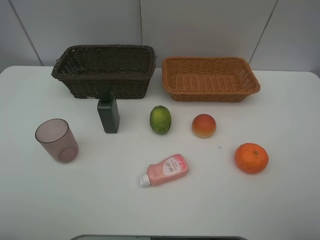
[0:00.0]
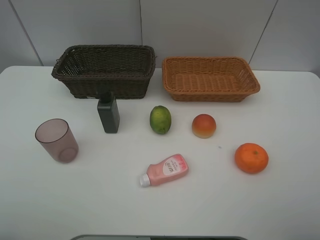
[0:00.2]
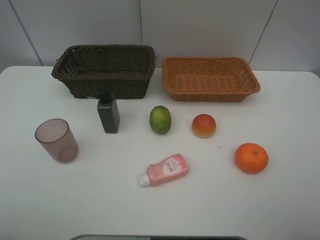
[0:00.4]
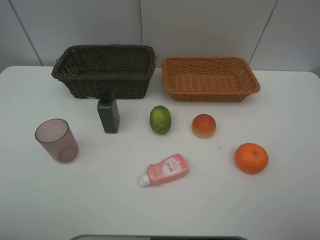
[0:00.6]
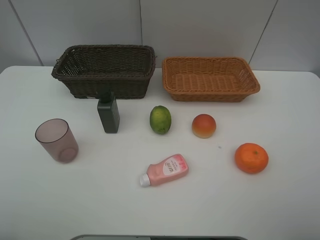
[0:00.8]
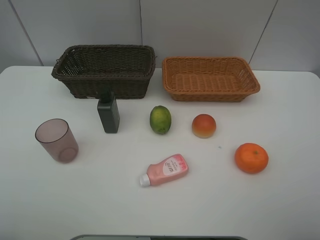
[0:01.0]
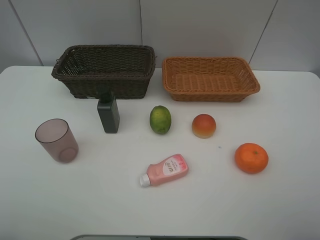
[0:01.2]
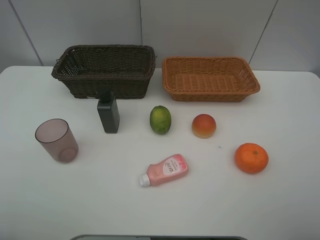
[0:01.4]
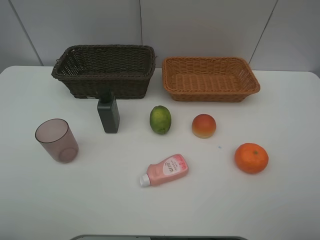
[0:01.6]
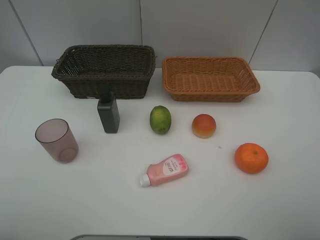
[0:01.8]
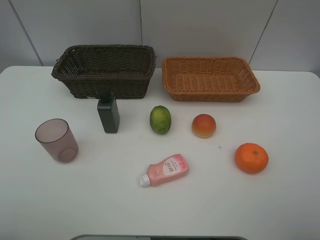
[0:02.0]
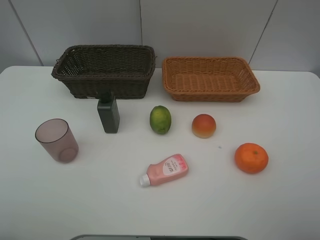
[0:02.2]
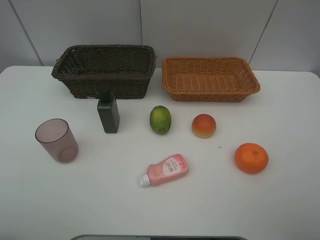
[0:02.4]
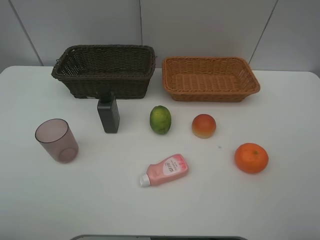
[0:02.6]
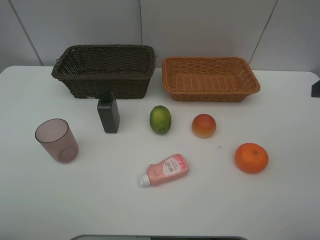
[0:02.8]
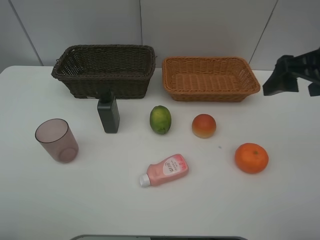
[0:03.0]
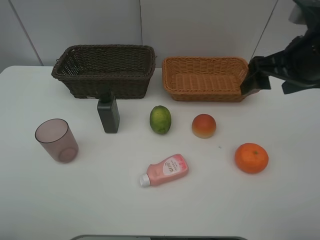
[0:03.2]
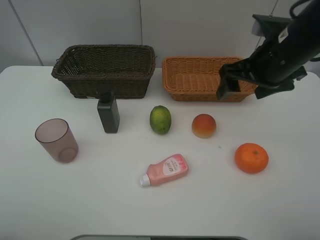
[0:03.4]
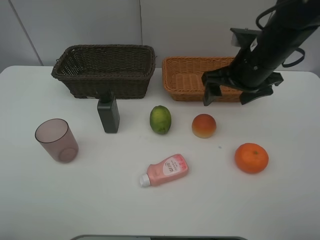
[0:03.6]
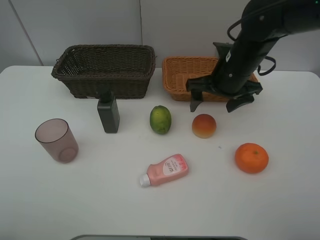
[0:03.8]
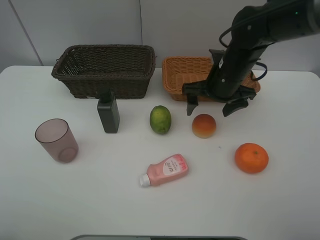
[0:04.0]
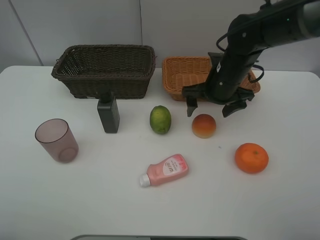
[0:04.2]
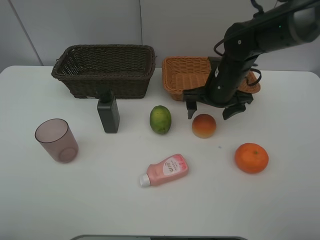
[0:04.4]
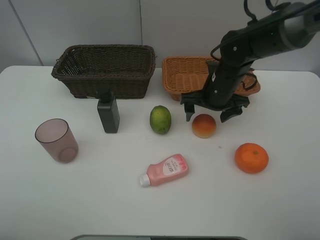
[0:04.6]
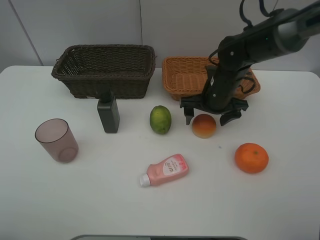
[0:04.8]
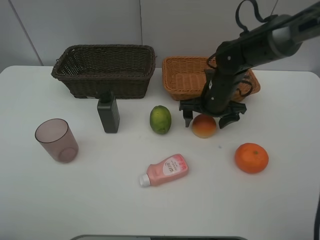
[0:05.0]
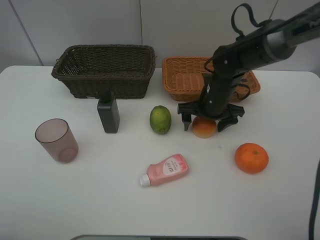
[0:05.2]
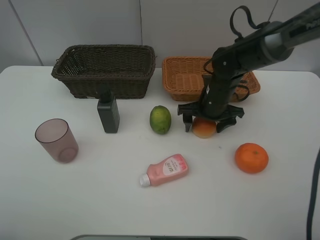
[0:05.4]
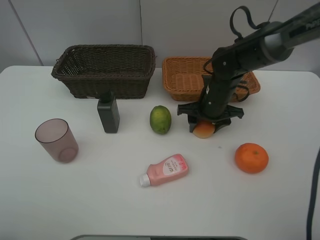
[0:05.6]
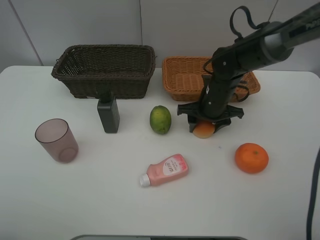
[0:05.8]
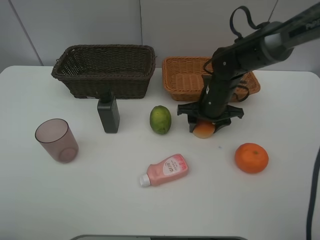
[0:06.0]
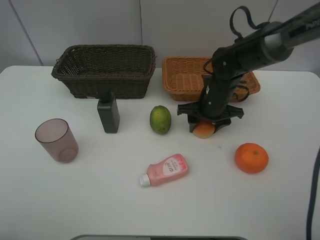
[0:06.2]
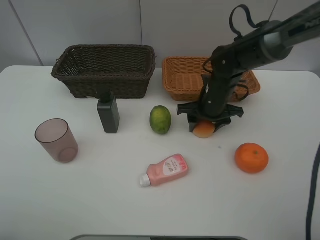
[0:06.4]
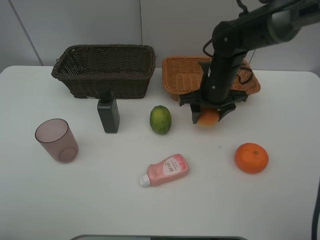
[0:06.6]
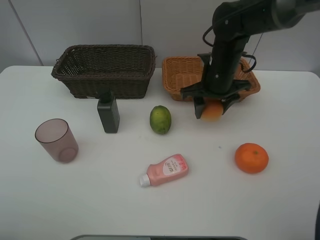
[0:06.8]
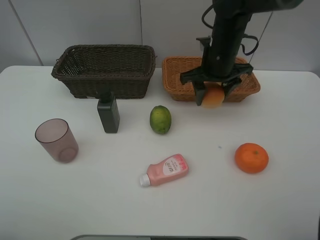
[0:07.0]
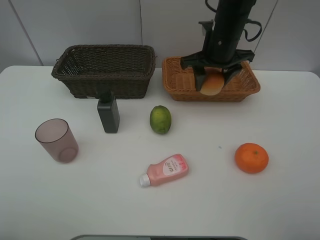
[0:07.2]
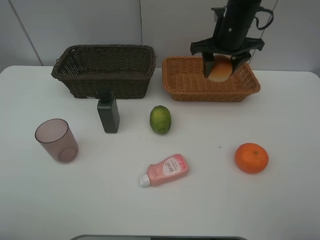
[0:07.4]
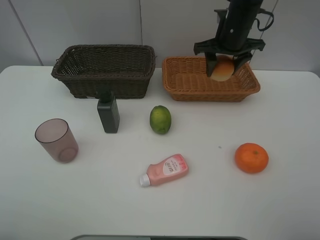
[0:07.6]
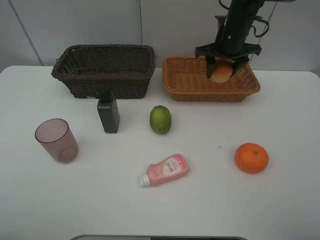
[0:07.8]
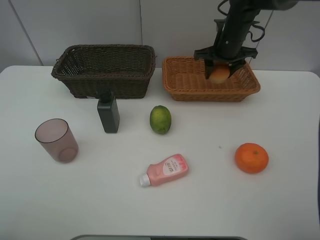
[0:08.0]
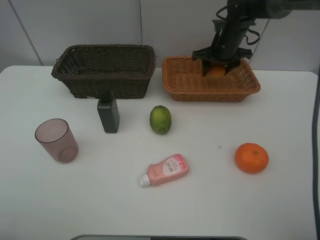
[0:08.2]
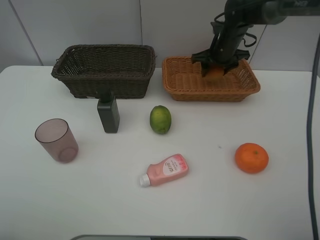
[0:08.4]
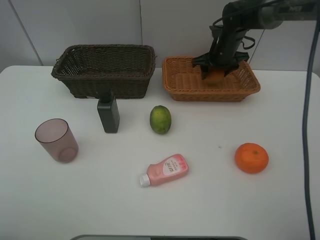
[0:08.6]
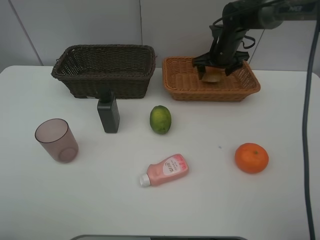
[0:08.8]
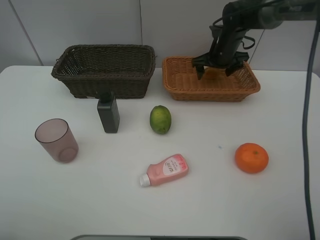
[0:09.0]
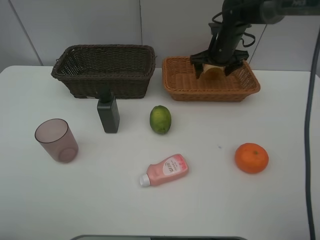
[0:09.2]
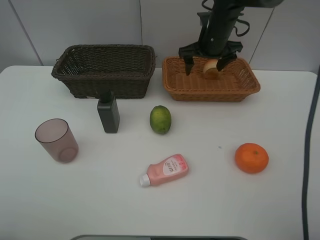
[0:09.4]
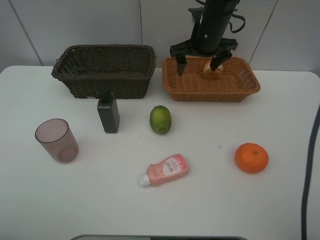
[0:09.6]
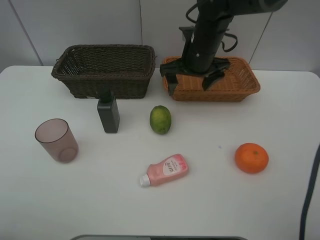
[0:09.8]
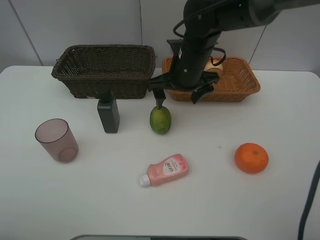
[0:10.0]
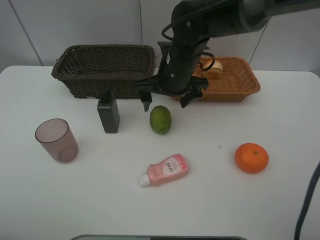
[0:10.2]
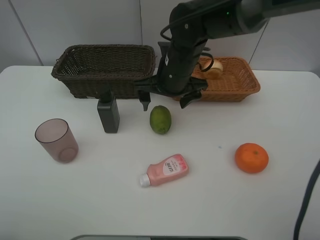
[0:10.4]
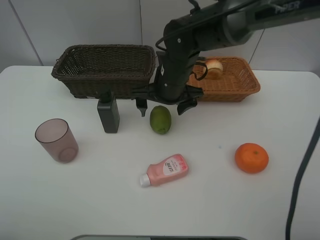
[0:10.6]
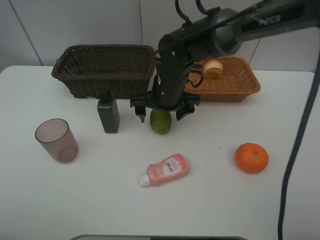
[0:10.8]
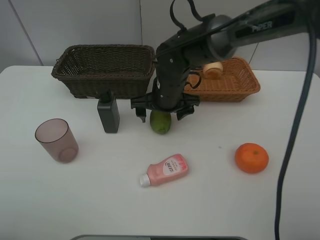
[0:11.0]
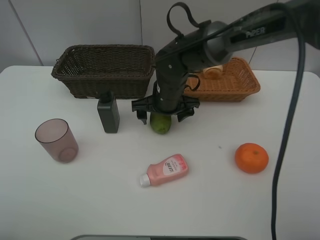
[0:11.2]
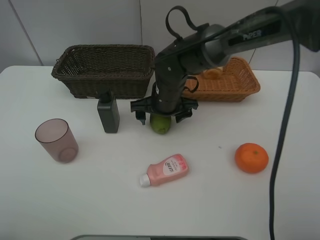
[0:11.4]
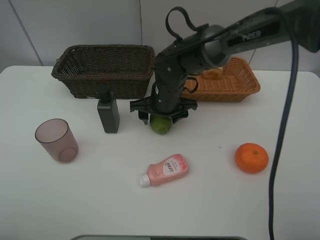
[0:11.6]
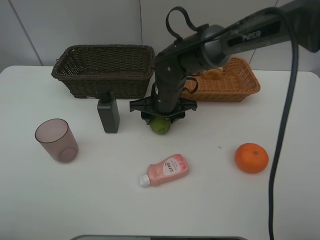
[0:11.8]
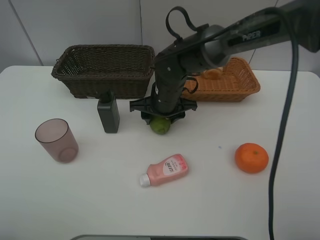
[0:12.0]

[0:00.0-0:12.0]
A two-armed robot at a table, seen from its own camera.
Task of the whole recording: place multiple objects separately in different baskets.
0:00.0 to 0:01.6: The two grippers keep their place.
0:01.6 to 0:03.0: The right gripper travels forward by about 20 cm.
0:03.0 to 0:04.4: The right gripper goes some 20 cm downward, forward and to the left.
0:04.4 to 0:06.0: The right gripper closes.
0:06.0 to 0:07.6: The right gripper travels upward and forward by about 15 cm.
0:07.6 to 0:09.0: The right gripper goes approximately 10 cm downward and forward, and opens.
0:09.0 to 0:10.4: The right gripper goes approximately 20 cm backward and to the left.
0:10.4 to 0:12.0: The right gripper moves downward, about 5 cm, and closes.

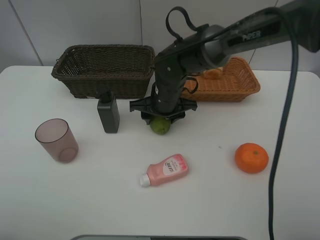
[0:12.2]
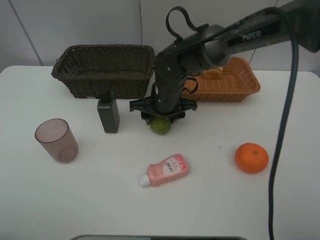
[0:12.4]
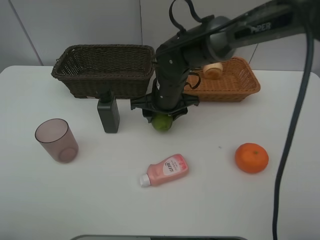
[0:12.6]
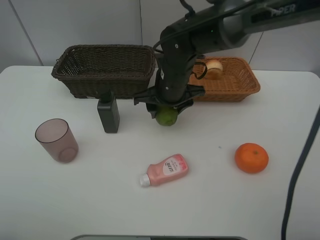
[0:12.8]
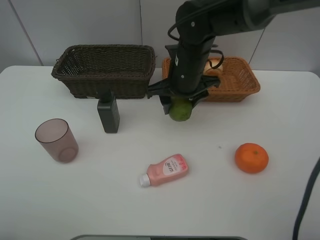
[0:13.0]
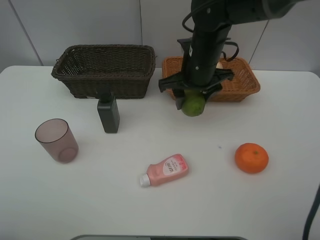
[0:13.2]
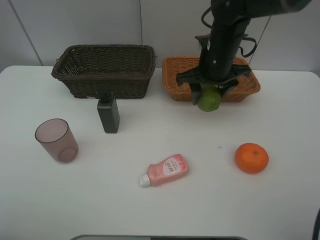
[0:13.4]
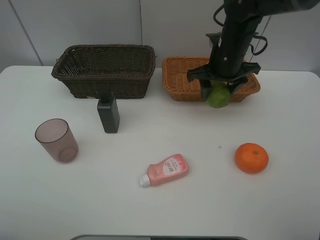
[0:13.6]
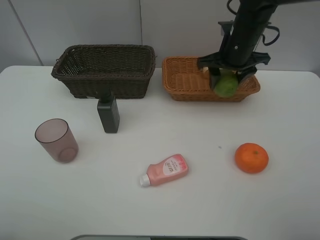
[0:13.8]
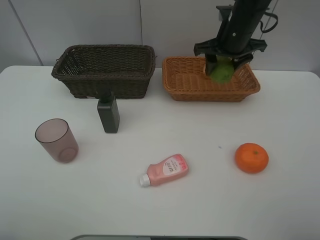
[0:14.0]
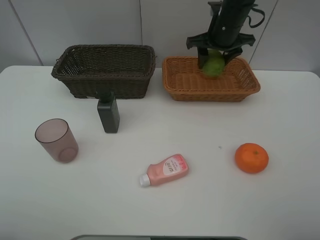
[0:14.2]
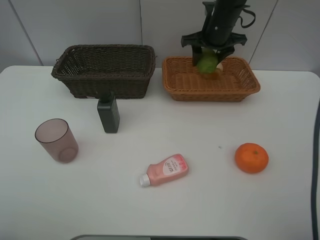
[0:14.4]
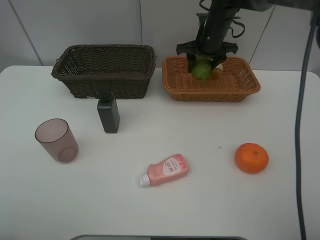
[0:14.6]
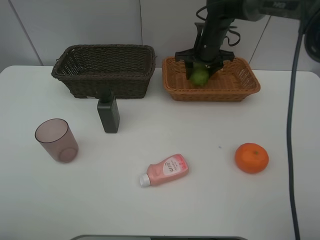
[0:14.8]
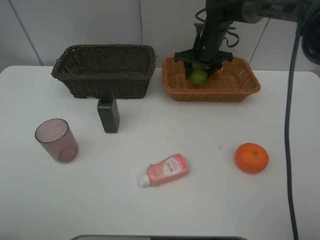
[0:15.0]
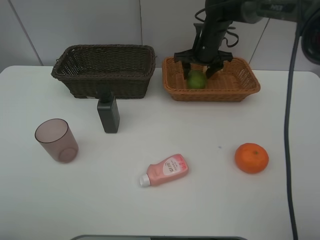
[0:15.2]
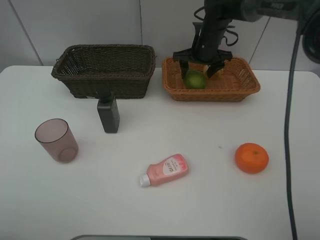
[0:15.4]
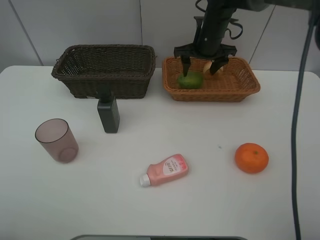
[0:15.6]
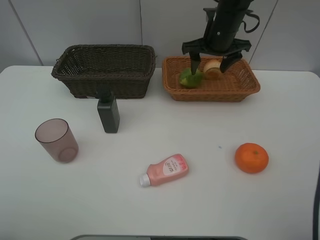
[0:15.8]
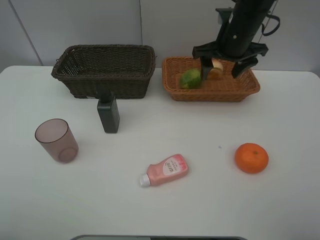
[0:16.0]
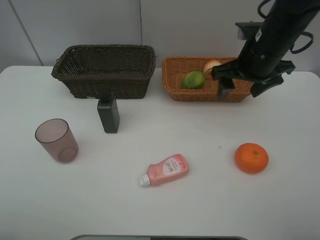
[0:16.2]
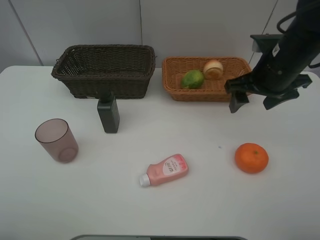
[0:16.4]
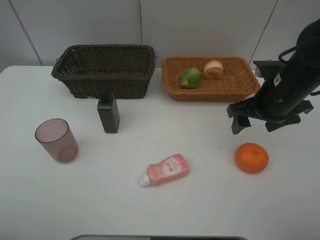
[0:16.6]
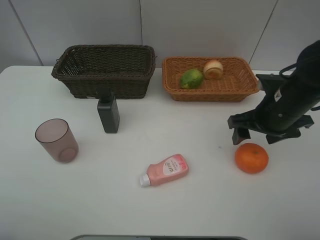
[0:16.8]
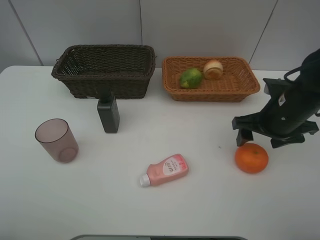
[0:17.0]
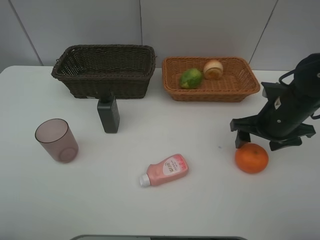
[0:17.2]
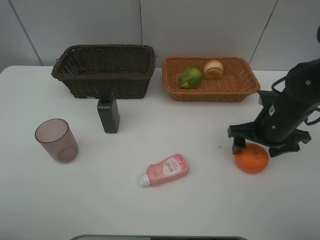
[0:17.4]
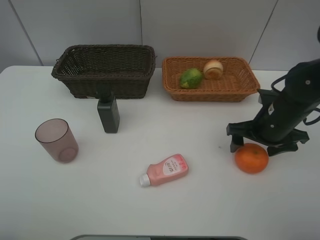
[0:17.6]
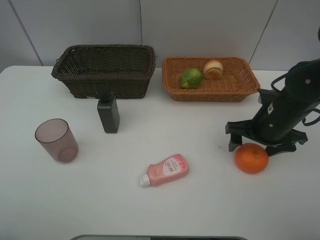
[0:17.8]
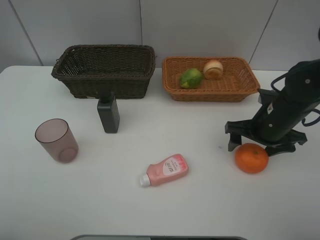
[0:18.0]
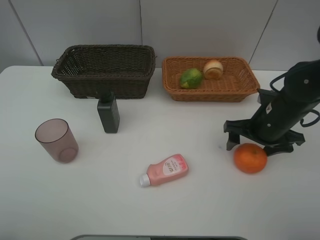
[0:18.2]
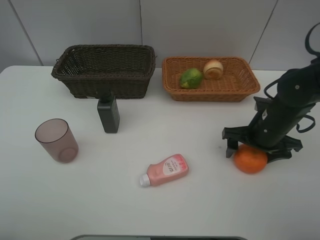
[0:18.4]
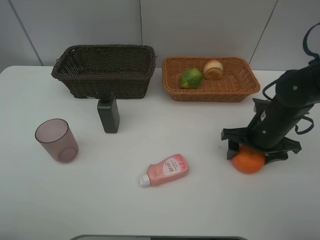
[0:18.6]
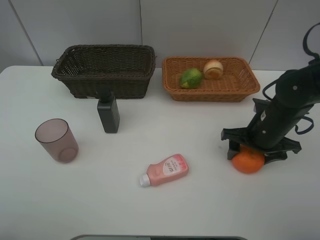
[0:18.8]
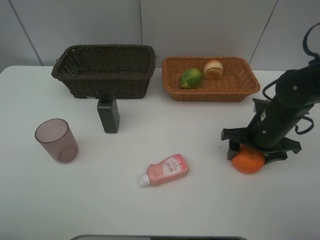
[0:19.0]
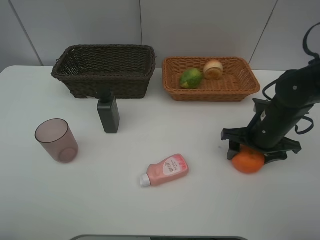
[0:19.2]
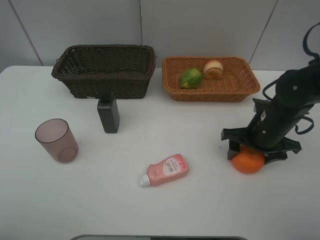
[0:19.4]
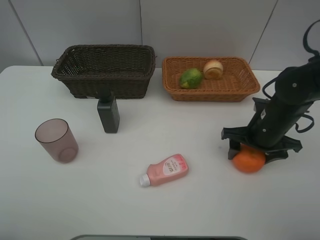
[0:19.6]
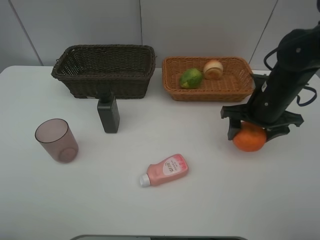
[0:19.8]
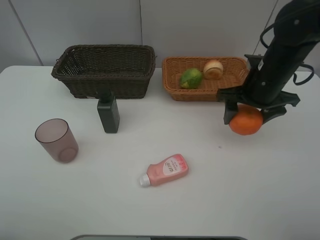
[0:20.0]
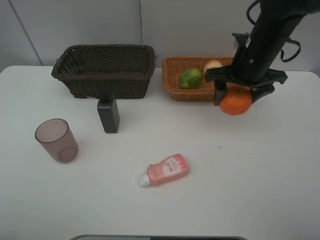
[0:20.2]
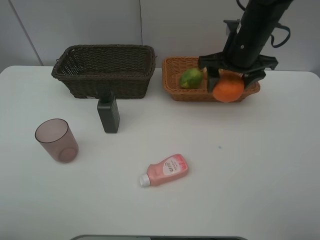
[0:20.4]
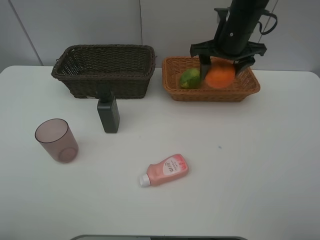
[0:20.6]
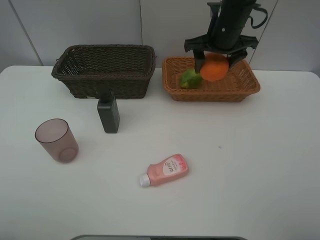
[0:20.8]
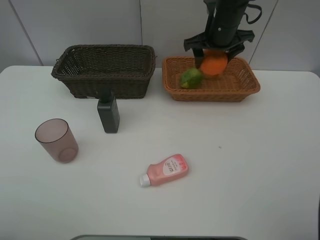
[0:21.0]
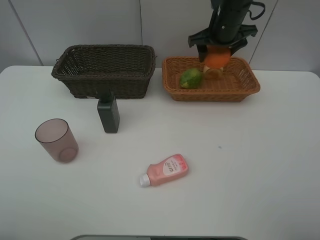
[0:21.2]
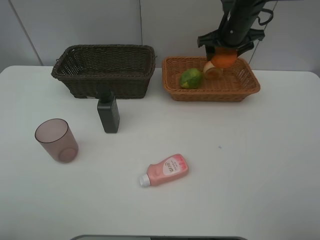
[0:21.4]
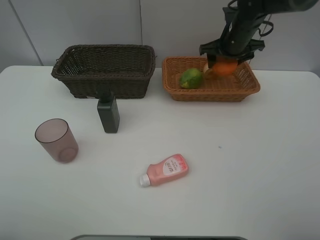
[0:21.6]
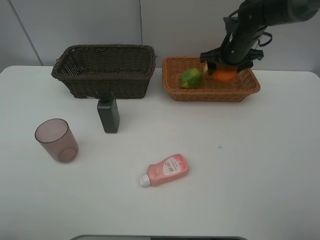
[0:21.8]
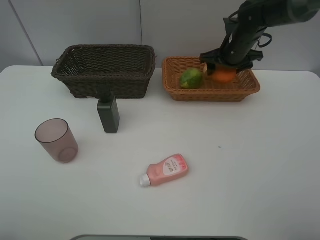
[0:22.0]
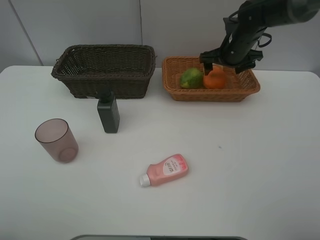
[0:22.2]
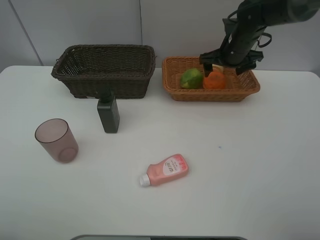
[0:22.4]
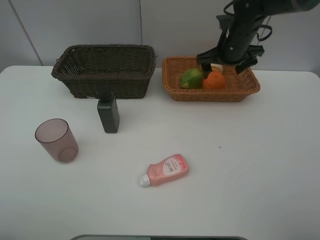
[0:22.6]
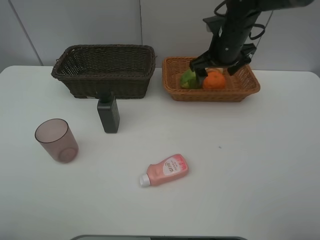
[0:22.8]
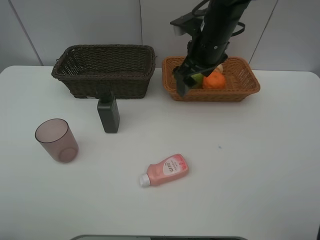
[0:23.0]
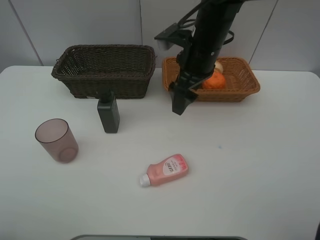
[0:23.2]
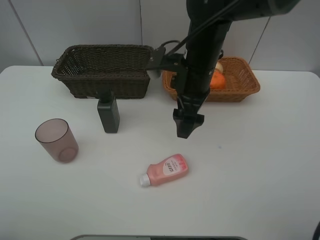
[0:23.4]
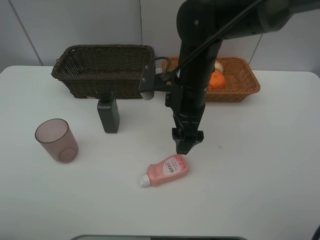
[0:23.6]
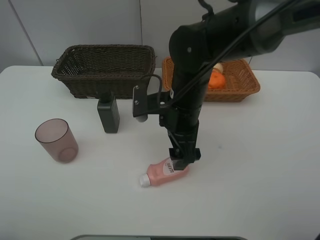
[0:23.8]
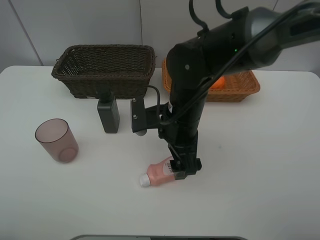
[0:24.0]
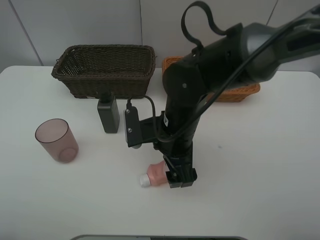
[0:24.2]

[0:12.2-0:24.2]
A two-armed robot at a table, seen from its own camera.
Task of the whole recording: place multiple objects separately in different baskets.
0:12.2 to 0:13.8: The right gripper goes some 20 cm to the right and upward.
0:13.8 to 0:15.2: The right gripper goes about 10 cm forward and downward, and opens.
0:15.2 to 0:16.6: The right gripper is displaced backward and to the right by about 25 cm.
0:16.6 to 0:18.2: The right gripper is displaced downward by approximately 5 cm.
0:18.2 to 0:19.8: The right gripper moves approximately 5 cm, and closes up.
0:19.8 to 0:21.2: The right gripper travels forward and upward by some 15 cm.
0:21.2 to 0:22.6: The right gripper opens its fingers.
0:22.6 to 0:24.2: The right gripper heads backward and to the left, covering approximately 25 cm.
